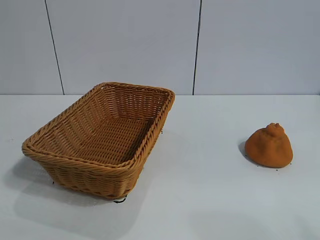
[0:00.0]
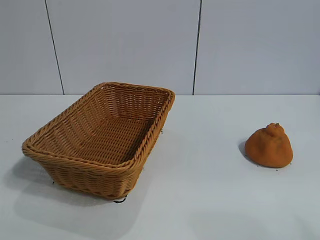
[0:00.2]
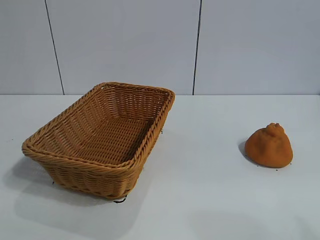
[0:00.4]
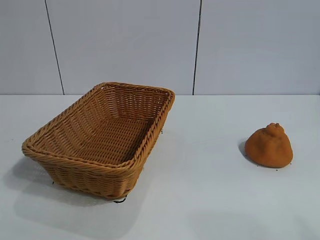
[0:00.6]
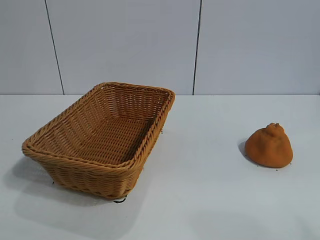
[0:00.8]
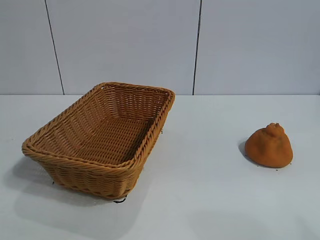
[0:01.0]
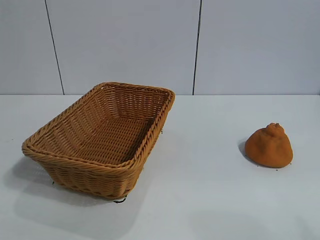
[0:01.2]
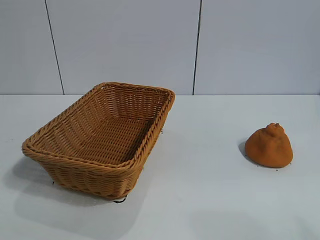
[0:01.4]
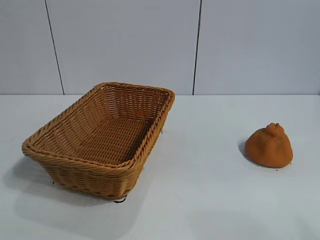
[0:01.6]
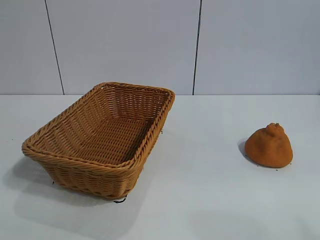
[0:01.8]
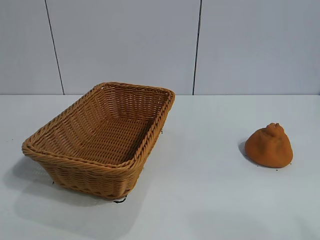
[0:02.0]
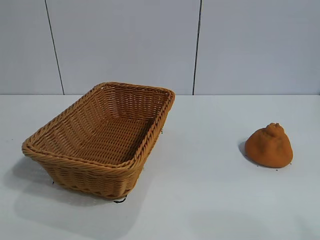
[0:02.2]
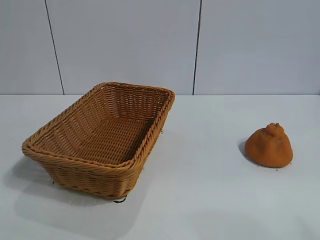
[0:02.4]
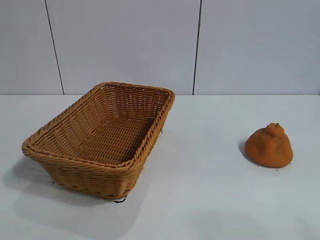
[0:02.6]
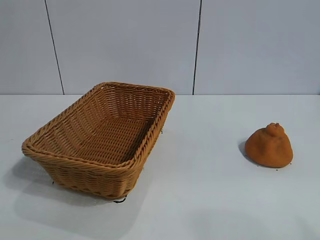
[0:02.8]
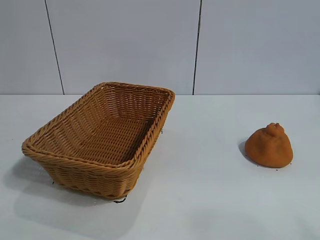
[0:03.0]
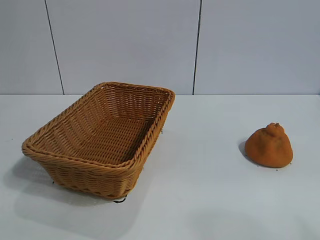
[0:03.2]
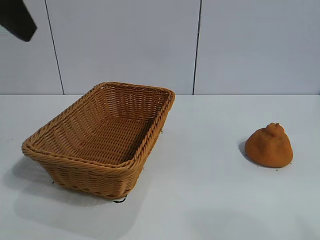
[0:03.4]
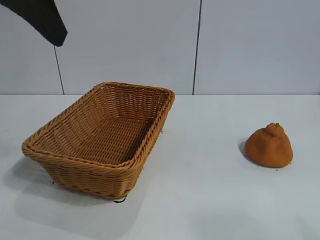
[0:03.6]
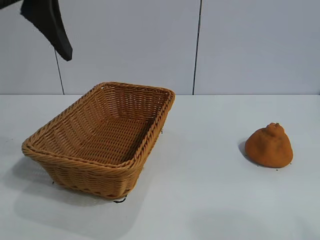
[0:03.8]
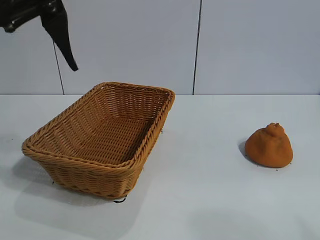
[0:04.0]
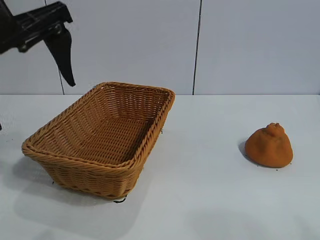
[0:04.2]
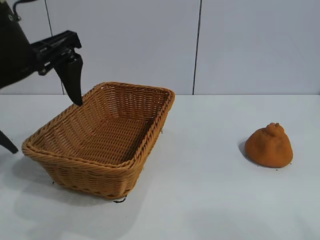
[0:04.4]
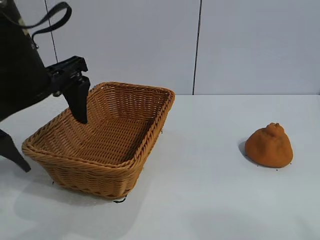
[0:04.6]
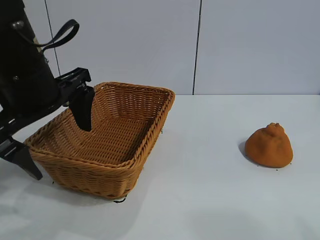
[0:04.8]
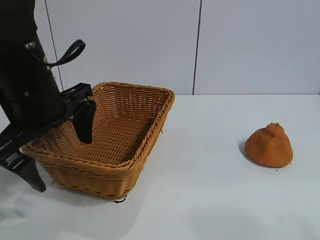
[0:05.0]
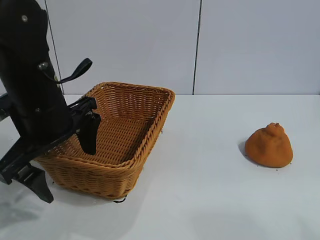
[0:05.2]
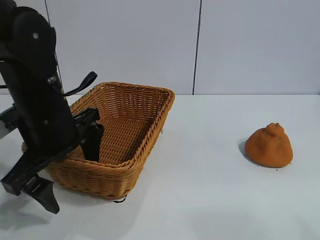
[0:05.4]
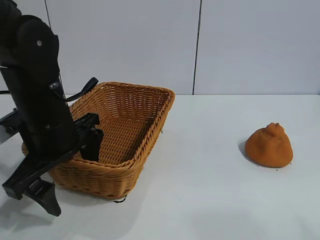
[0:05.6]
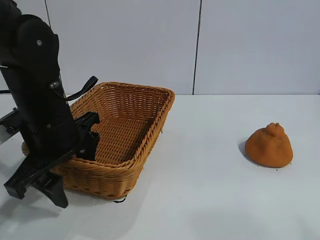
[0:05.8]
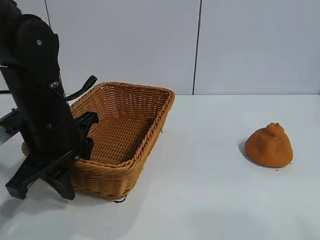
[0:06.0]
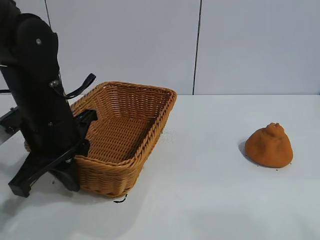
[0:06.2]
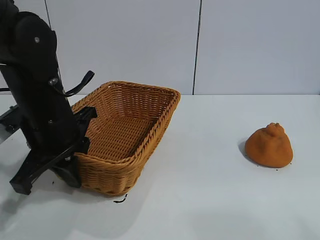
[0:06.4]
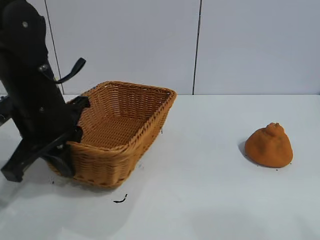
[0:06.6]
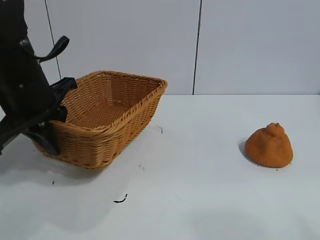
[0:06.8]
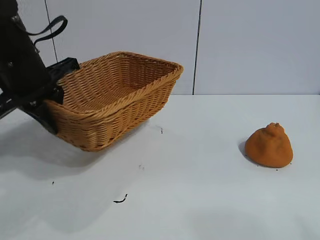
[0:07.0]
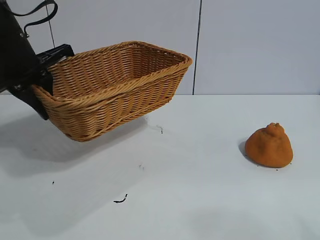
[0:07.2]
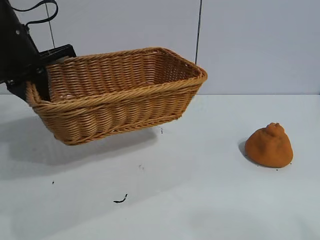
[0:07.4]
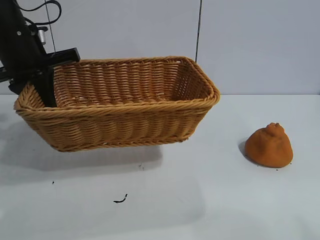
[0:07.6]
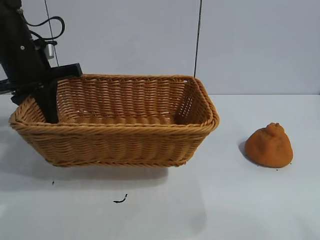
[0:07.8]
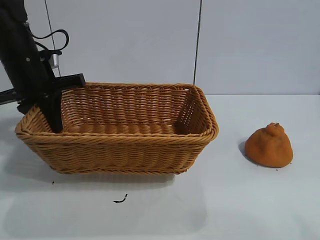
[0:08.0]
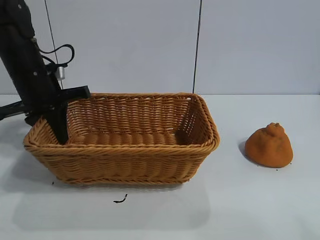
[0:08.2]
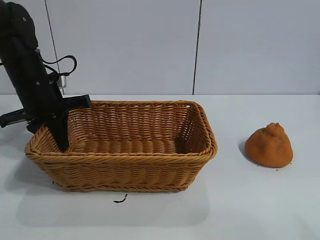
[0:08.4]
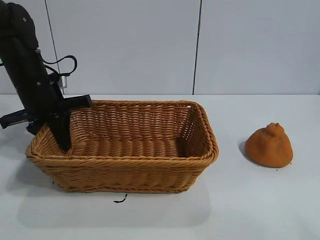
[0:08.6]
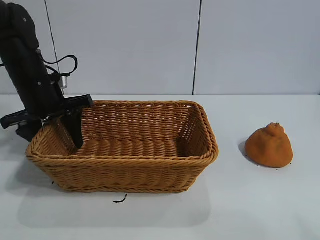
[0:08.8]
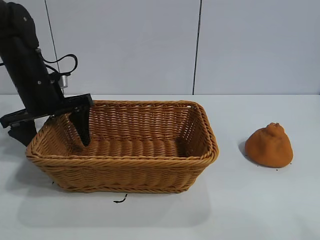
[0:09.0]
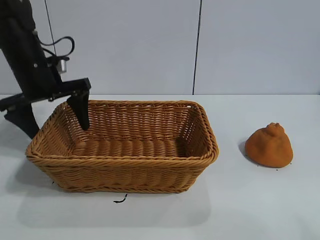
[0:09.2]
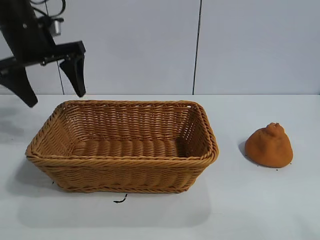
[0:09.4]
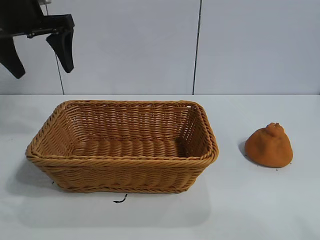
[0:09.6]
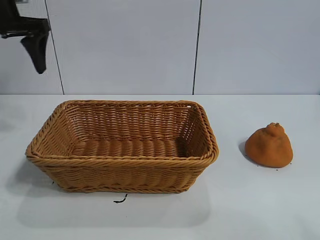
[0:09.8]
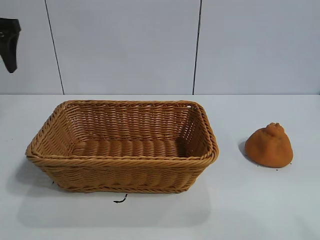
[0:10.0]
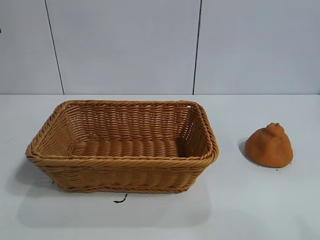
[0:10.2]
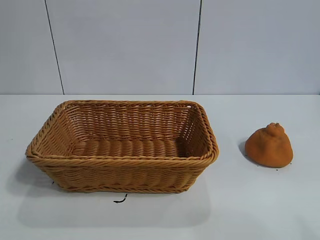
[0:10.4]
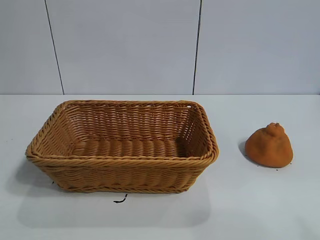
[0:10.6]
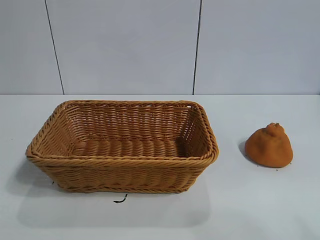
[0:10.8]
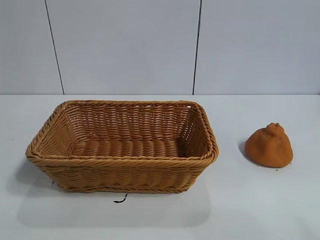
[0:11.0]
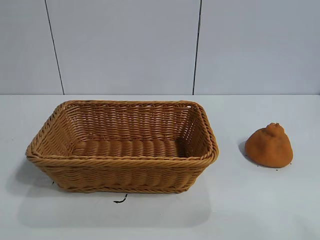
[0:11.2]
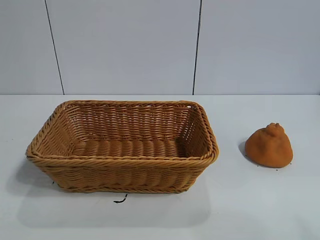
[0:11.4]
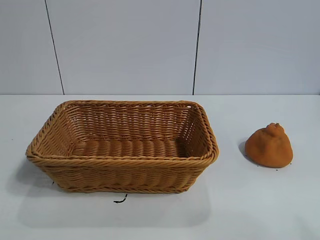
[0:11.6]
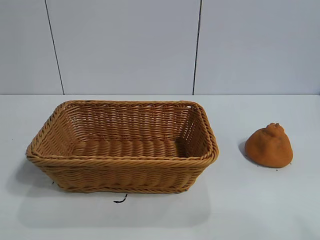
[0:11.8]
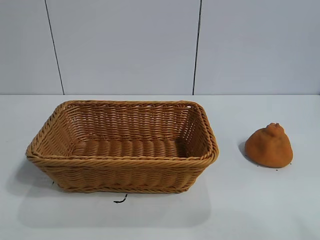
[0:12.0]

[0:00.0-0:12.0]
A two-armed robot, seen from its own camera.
Task of the whole recording: pick up the orange and put it into the basket.
Step, 0:02.0 to 0:06.2: Grasp the basket with left gripper.
Step, 0:06.4 to 0:08.8: Place the basket in the center of view with left gripper.

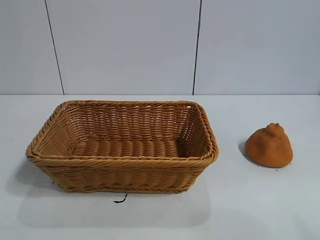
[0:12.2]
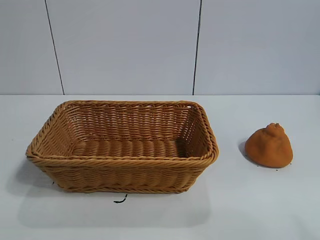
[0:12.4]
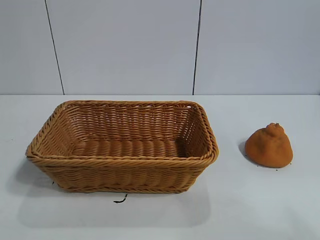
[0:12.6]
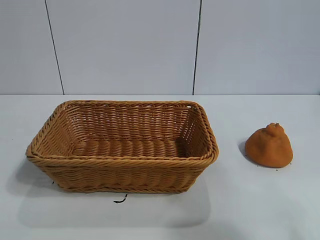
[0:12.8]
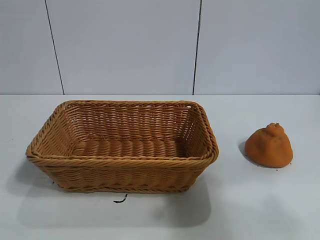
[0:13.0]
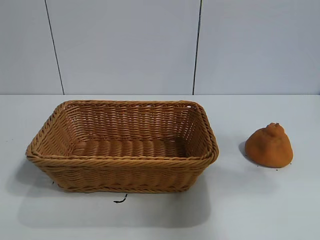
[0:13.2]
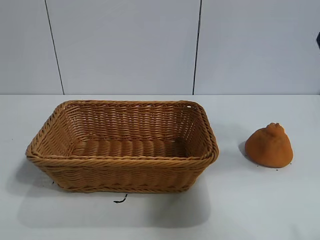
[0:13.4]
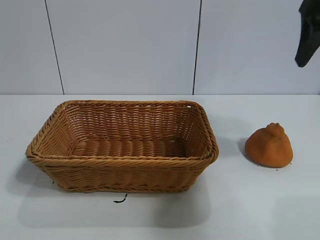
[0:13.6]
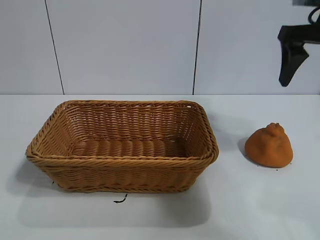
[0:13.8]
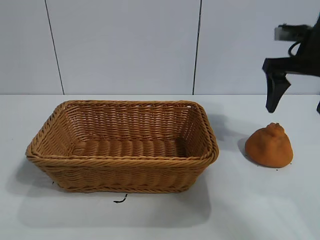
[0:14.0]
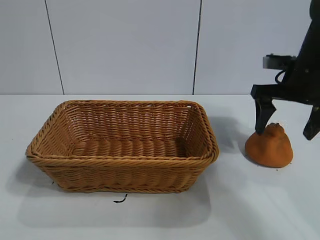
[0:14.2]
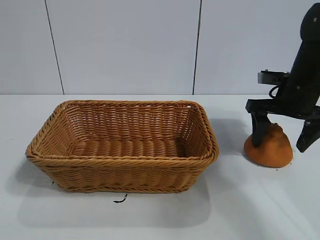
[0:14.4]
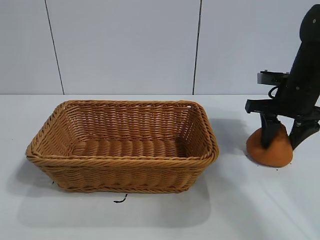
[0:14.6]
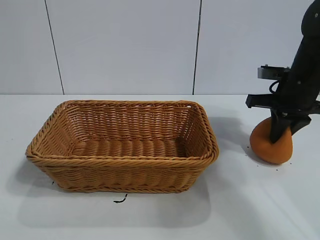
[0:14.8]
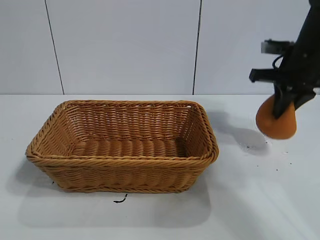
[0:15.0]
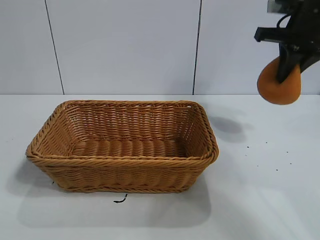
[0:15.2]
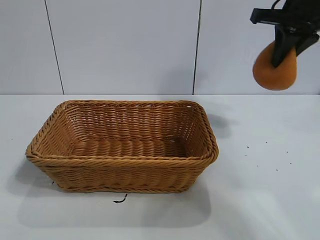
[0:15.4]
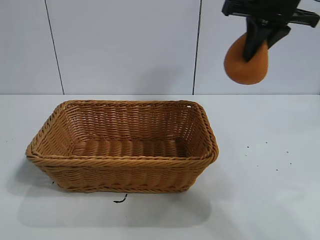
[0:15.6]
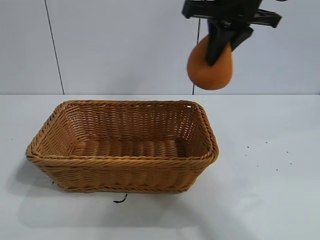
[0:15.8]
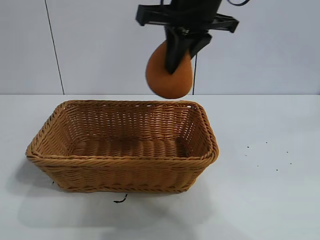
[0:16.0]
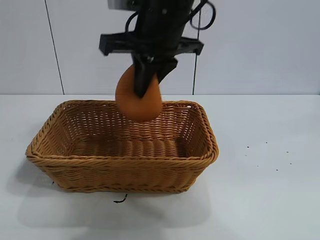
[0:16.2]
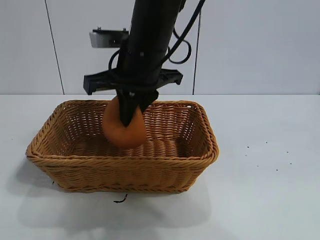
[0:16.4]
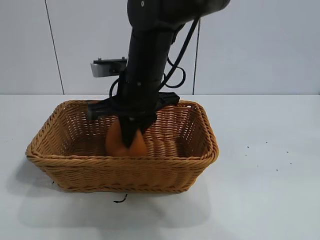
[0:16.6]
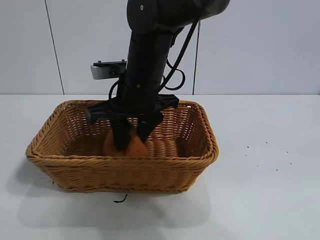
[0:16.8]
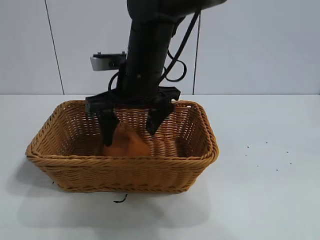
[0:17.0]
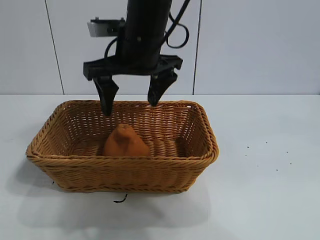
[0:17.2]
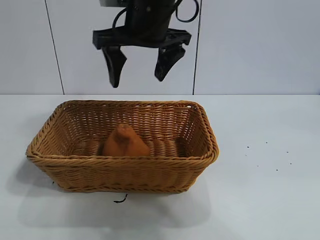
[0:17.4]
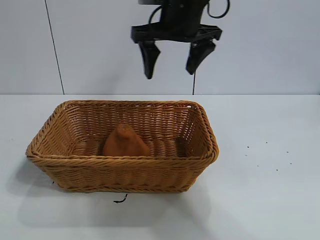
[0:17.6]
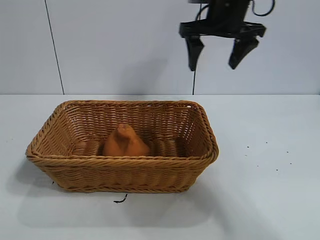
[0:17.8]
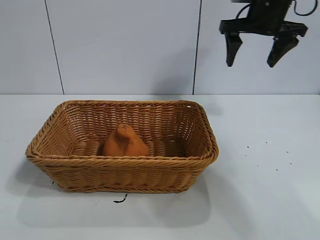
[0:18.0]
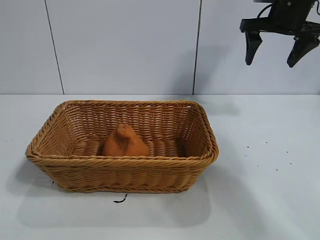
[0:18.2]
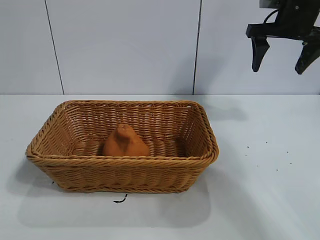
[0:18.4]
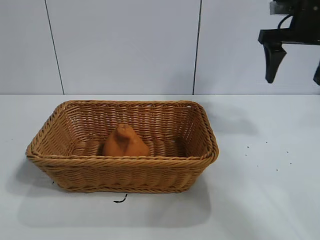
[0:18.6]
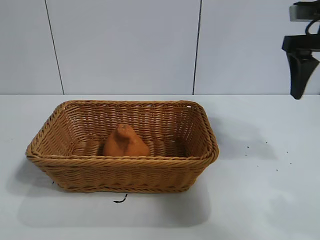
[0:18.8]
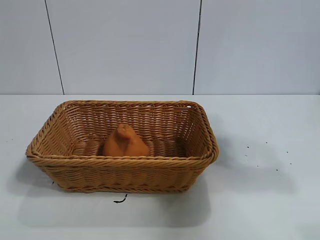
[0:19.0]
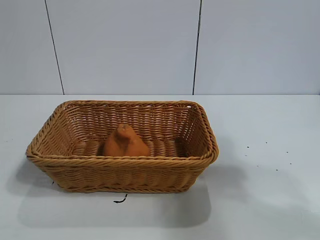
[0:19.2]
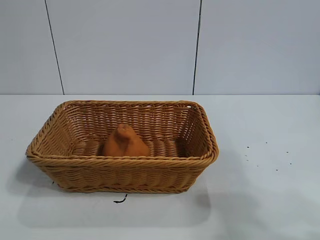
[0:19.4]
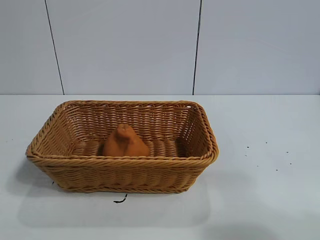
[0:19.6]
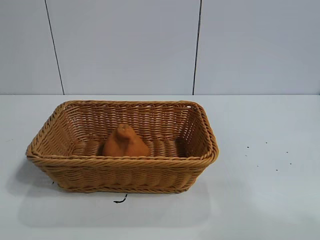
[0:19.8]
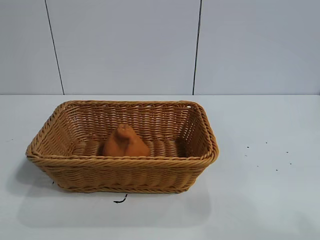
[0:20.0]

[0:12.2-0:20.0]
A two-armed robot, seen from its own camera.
Task of the whole recording: pick up the orange and put it into the basket.
Step, 0:12.2 to 0:14.8: Grasp the orange with right gripper.
Step, 0:15.0 to 0:17.0: Place the orange in the basket with right gripper.
